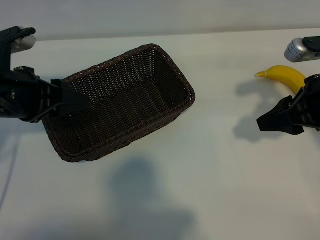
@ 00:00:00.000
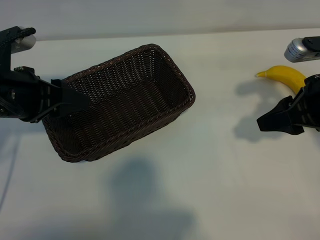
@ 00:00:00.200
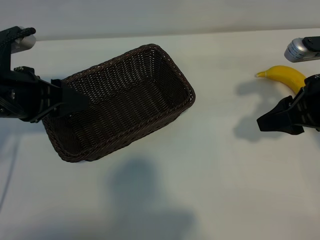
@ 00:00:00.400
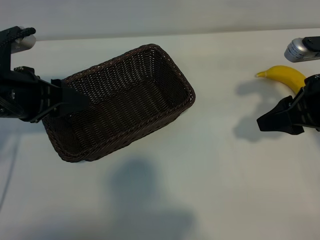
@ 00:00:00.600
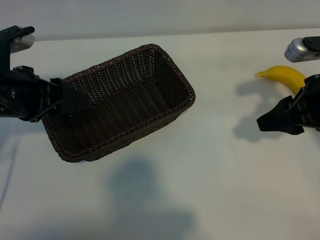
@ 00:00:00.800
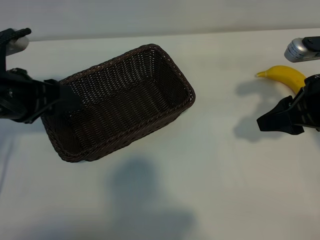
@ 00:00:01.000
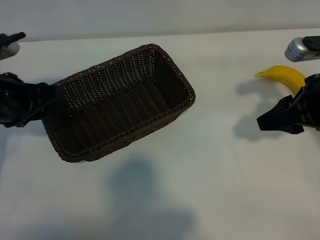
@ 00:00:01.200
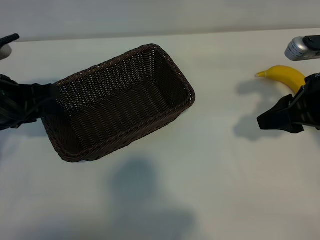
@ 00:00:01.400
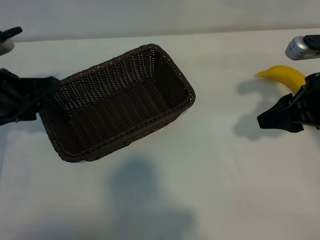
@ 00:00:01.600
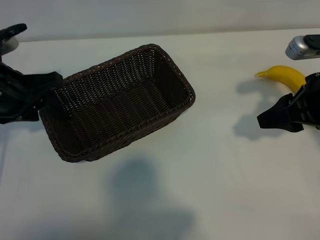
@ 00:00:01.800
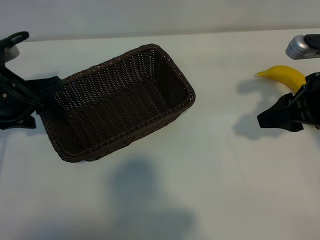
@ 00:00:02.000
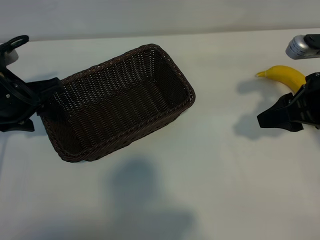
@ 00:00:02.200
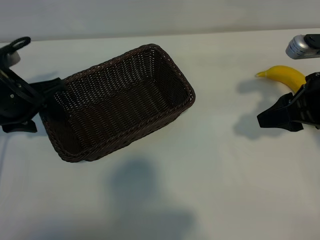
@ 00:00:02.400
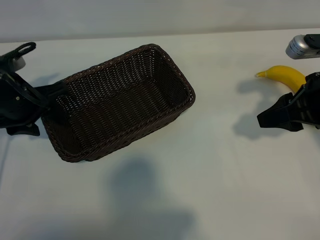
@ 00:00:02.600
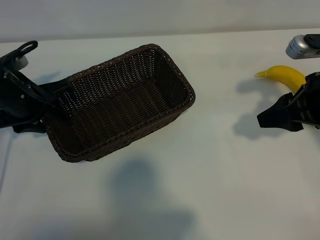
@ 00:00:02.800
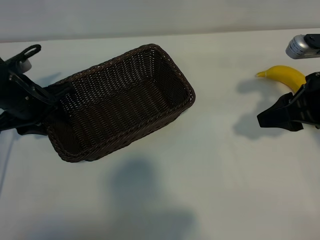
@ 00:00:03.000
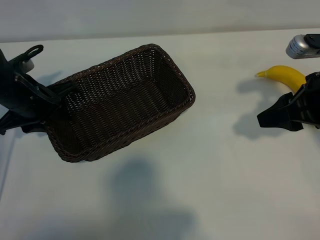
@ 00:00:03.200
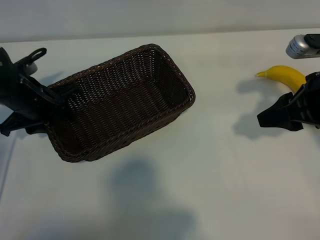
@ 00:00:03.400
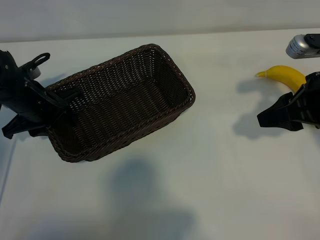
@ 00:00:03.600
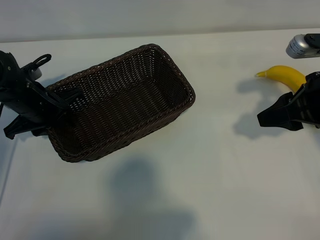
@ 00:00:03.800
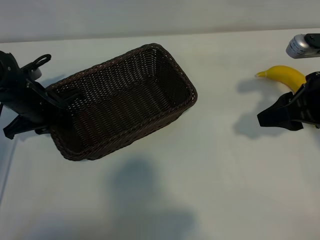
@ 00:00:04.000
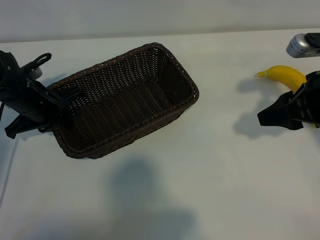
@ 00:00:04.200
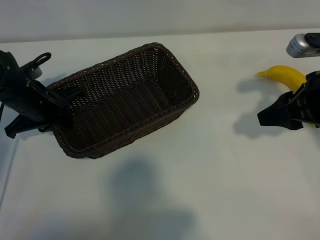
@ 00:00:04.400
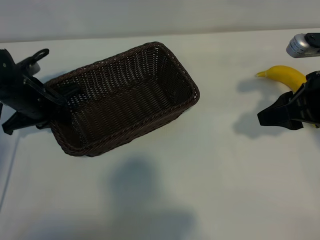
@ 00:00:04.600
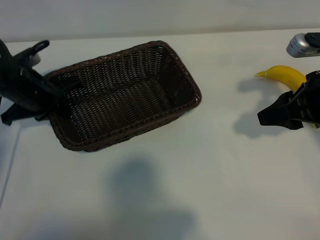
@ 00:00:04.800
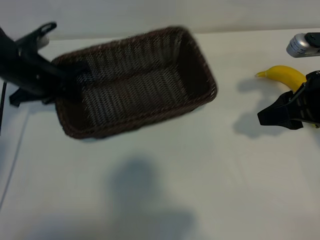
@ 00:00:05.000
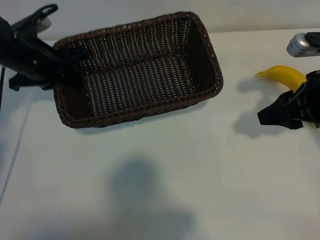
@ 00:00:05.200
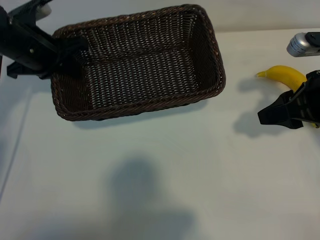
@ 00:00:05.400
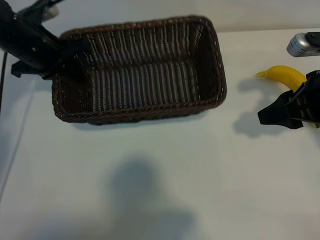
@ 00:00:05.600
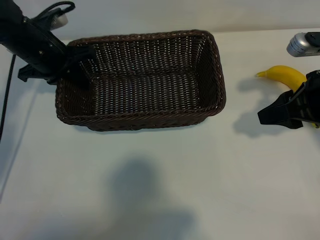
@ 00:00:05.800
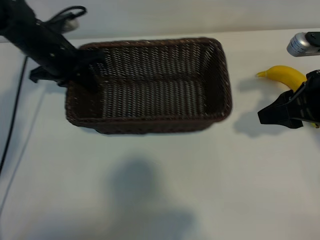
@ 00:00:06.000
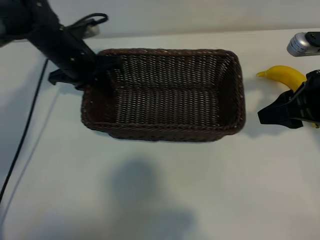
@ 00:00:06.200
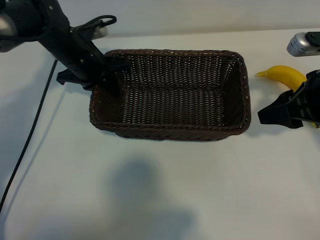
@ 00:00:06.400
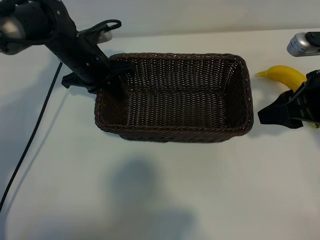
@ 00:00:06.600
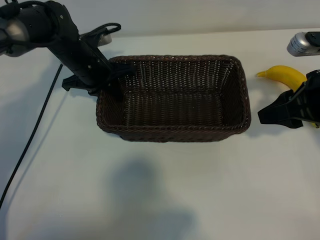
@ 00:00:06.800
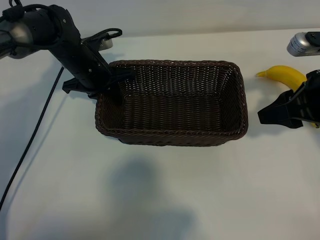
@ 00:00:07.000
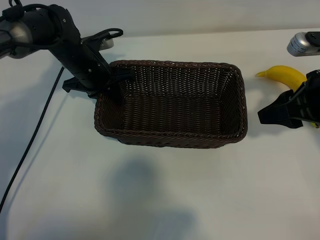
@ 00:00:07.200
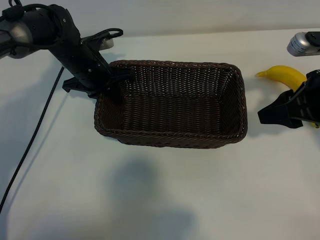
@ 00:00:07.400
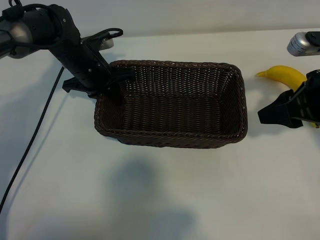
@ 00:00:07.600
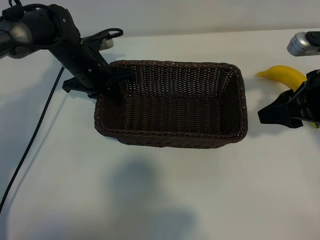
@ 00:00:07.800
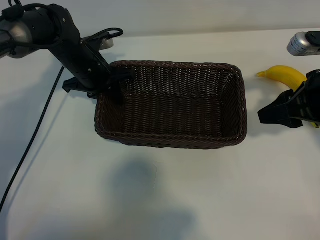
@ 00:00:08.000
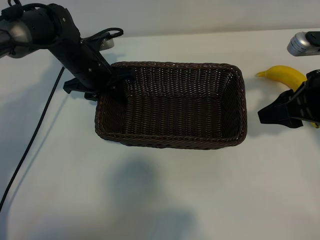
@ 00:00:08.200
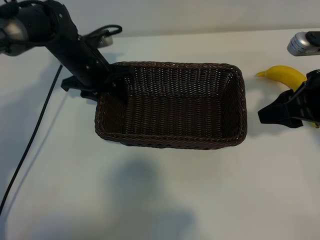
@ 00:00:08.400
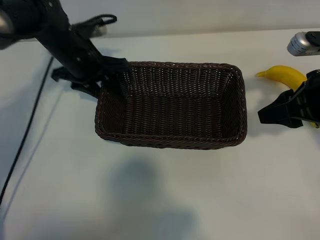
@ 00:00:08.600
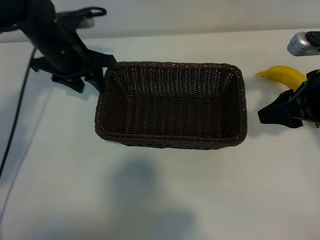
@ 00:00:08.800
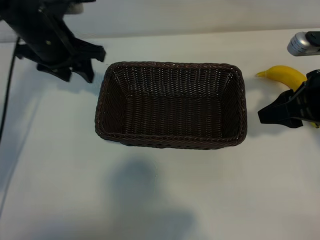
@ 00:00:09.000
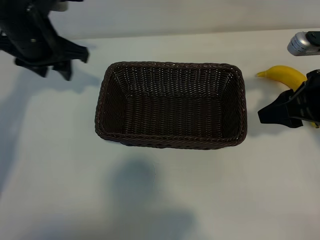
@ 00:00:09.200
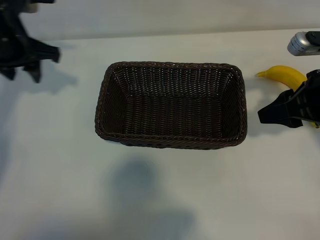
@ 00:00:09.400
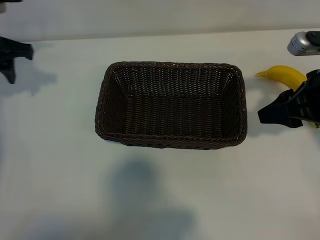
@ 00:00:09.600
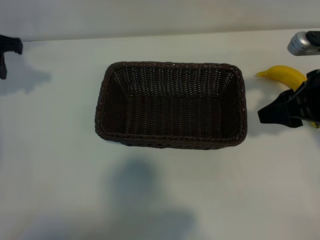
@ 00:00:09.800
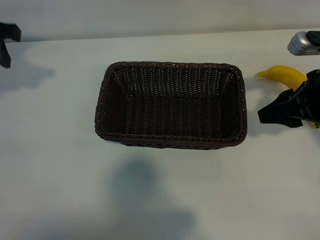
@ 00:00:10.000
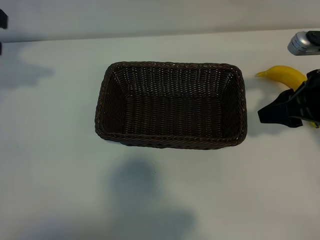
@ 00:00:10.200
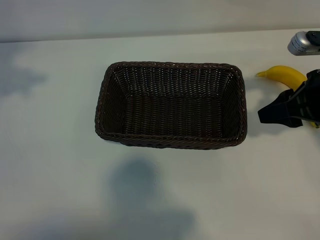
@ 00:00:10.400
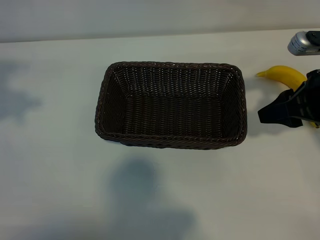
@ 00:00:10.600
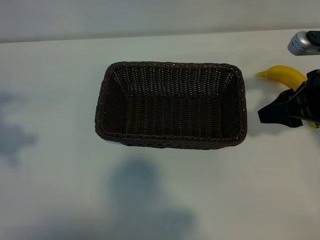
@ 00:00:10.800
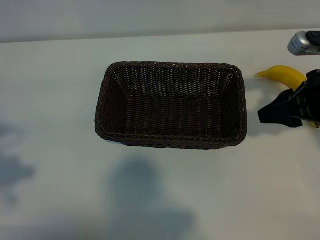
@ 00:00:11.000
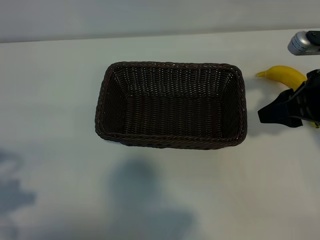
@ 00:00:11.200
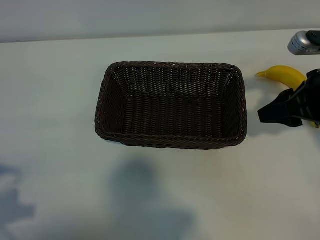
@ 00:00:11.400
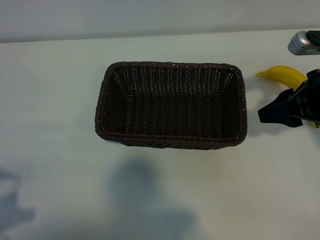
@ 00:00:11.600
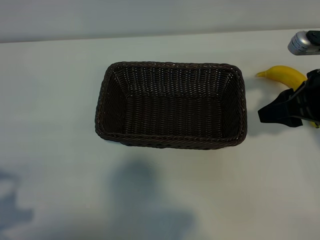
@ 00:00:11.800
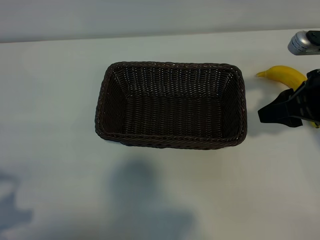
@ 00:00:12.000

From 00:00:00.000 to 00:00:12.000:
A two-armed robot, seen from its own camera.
Task of the whole recording: pick up the banana and put it into the basket.
Step, from 00:00:00.800 to 00:00:04.200: Grasp the basket with the left gripper.
Step, from 00:00:04.400 to 00:00:08.800: Place the basket in the center of the table with the left gripper.

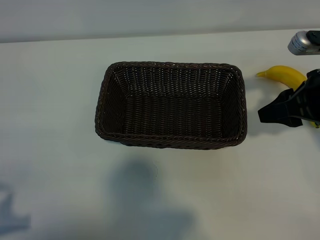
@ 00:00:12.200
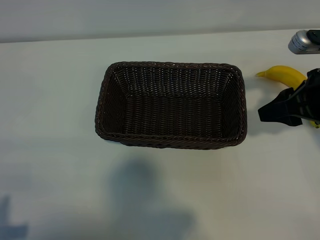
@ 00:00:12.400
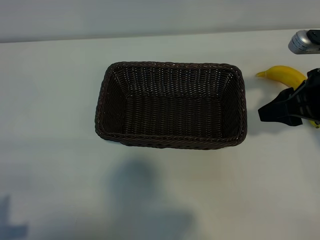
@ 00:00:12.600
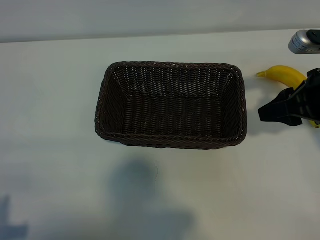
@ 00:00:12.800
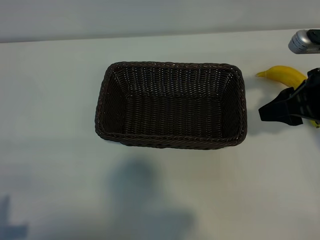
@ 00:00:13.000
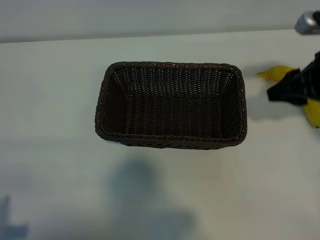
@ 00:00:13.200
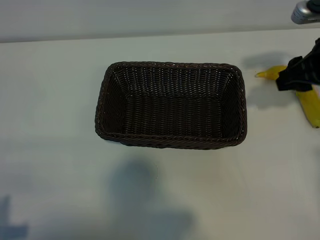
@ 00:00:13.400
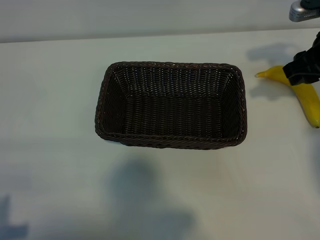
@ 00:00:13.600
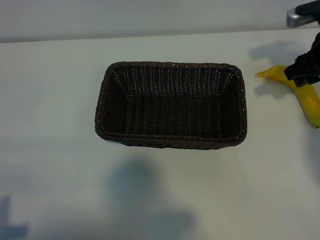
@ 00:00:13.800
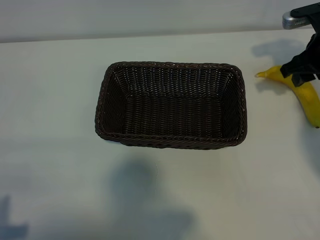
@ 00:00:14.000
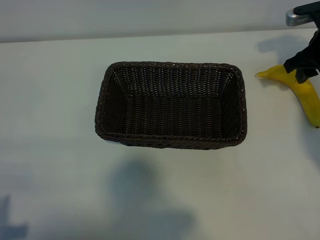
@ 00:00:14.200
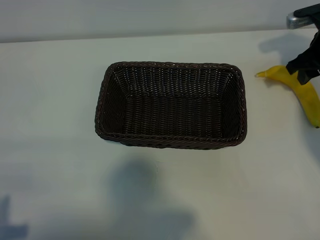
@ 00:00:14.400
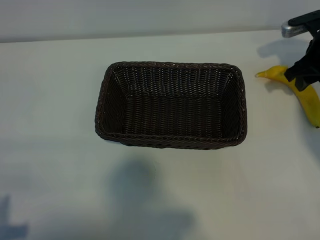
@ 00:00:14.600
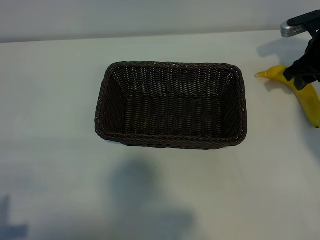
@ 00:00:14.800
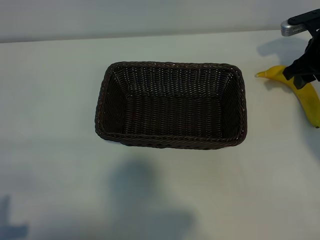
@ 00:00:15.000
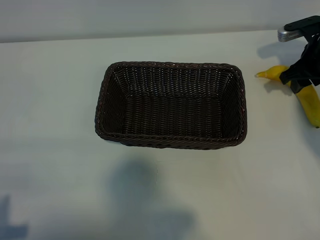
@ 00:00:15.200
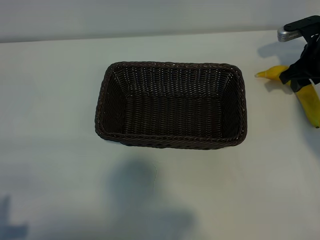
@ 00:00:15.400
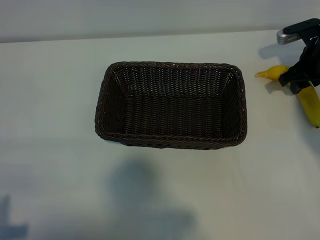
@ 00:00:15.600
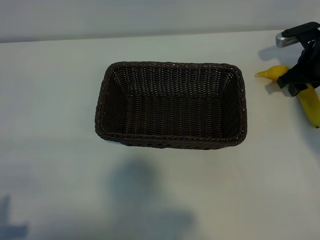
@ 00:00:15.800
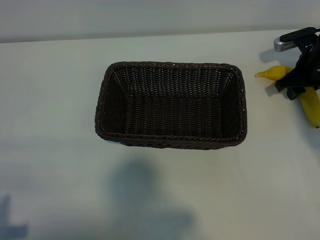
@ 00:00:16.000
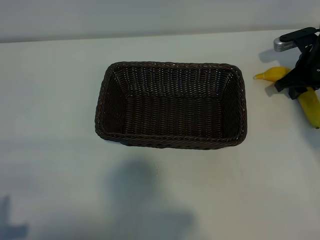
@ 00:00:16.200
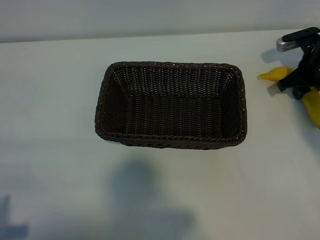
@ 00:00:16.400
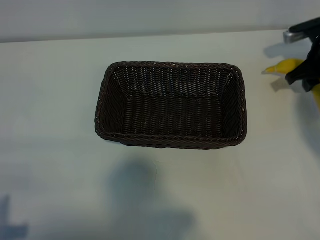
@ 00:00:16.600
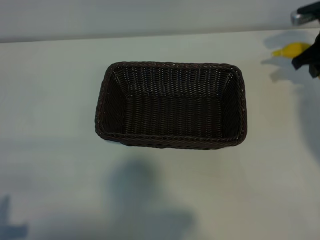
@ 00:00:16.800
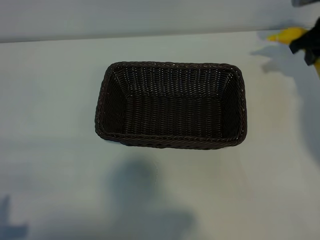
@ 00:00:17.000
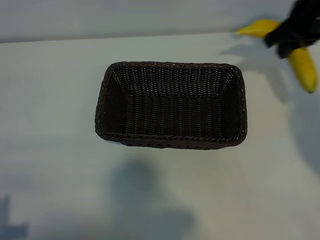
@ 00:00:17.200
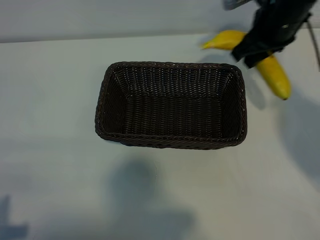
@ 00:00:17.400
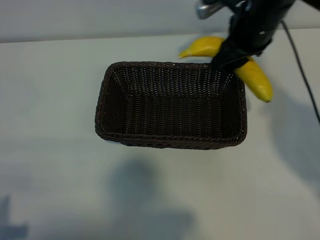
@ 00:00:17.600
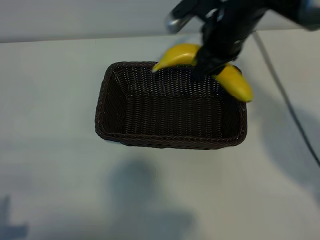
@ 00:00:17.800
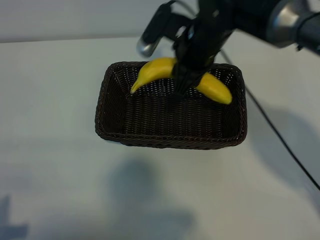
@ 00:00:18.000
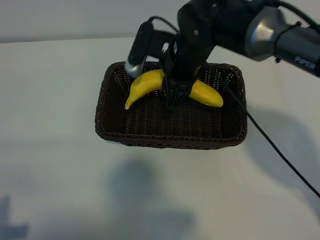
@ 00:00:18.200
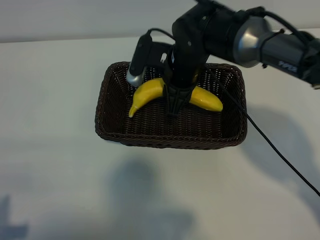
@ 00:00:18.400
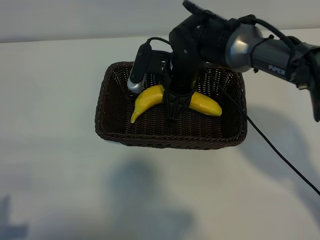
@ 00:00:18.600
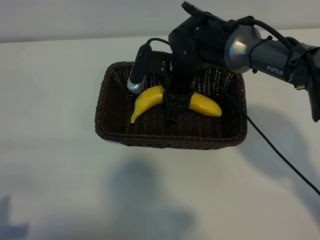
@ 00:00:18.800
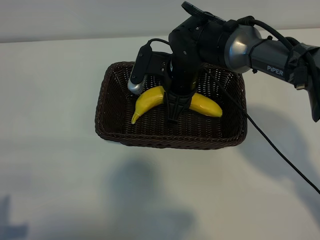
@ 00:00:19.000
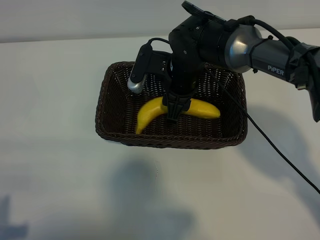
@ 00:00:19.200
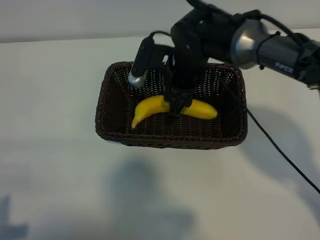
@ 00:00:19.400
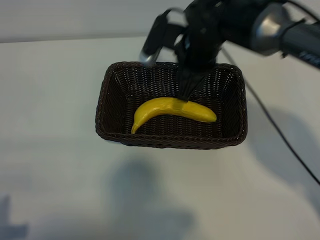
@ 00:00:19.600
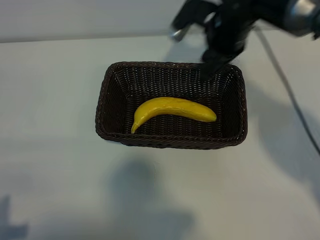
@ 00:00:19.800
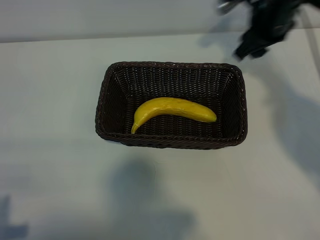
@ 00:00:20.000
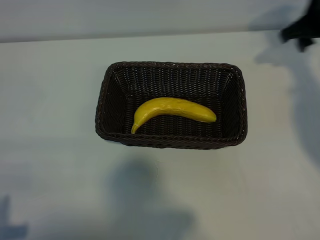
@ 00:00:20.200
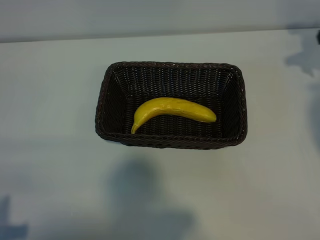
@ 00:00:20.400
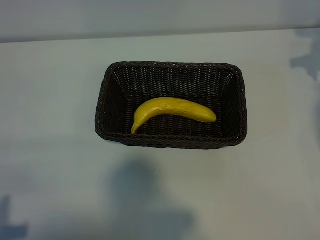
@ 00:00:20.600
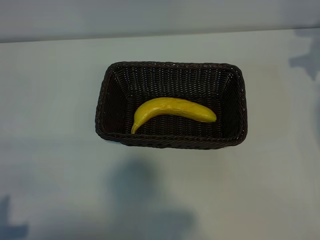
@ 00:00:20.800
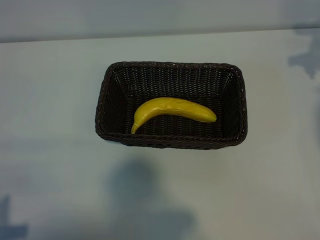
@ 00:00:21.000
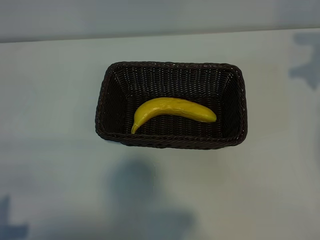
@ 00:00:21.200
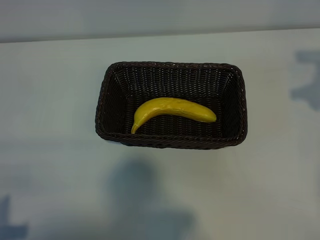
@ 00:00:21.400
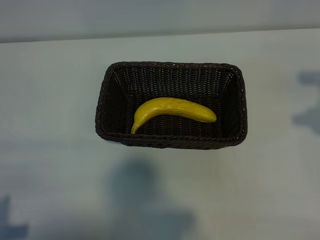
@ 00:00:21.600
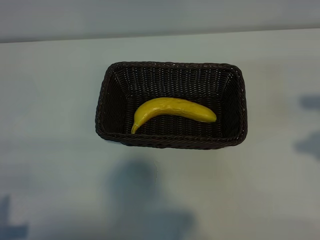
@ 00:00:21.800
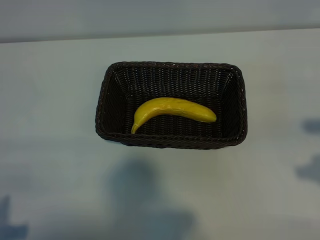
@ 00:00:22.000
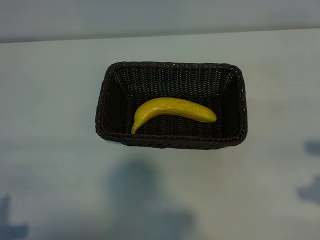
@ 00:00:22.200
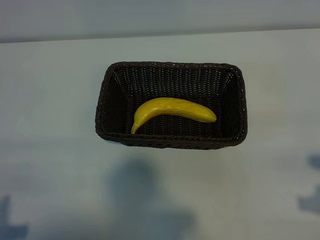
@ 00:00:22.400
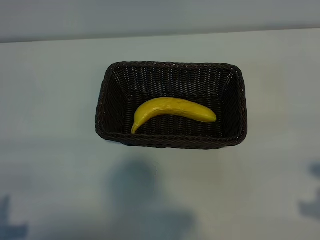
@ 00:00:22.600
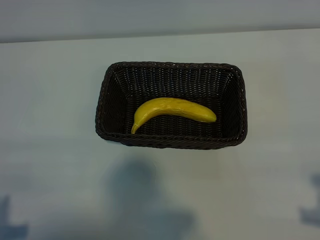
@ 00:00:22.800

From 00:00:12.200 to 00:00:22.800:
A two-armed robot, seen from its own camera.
Task of the whole recording: pick up the banana and put it into the basket.
Step, from 00:00:12.200 to 00:00:16.200: Grasp the banana with right gripper.
Step, from 00:00:16.400 to 00:00:19.600: Place the banana in the basket with right gripper.
